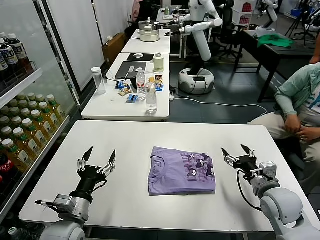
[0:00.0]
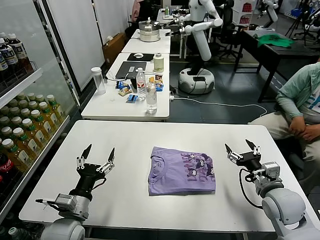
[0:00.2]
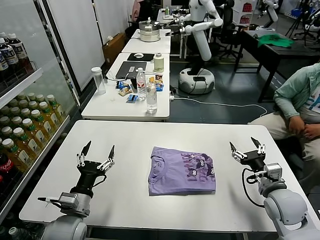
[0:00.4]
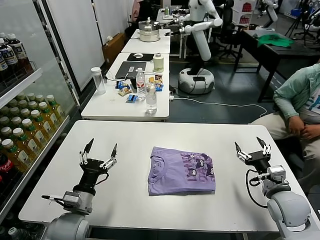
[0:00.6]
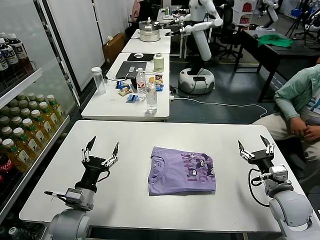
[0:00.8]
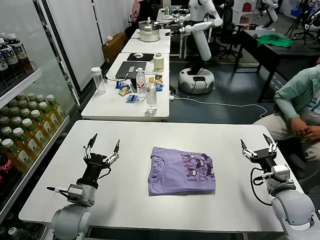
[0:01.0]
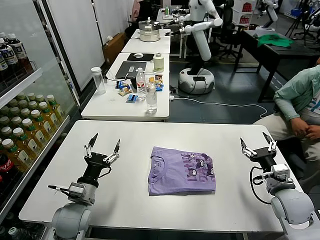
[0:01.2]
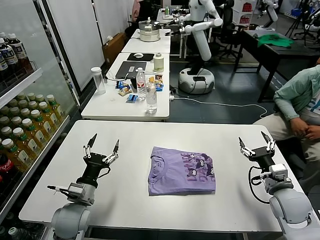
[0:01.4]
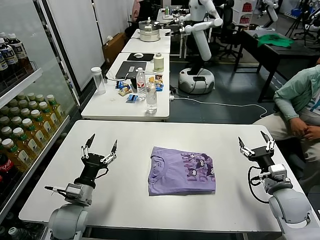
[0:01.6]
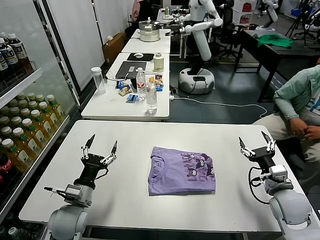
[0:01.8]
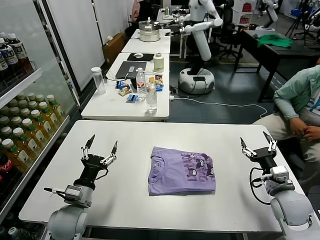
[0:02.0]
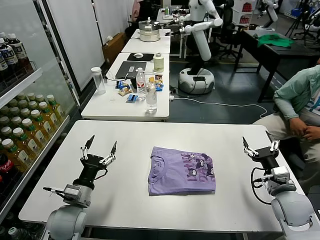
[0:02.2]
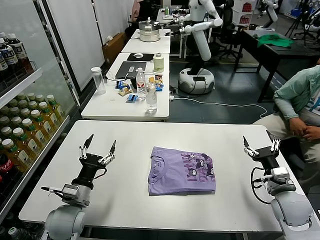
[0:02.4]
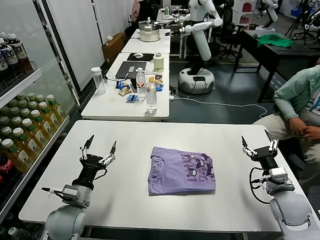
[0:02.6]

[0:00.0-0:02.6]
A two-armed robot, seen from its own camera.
Task of the whole recording: fold and organize the clothes.
0:00.0 to 0:01.2: The left gripper shifts some 5 cm forward.
0:01.2 to 0:02.6: There are only small adjustments of the grippers.

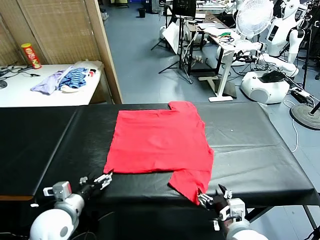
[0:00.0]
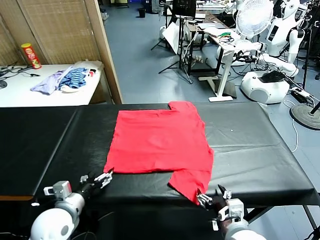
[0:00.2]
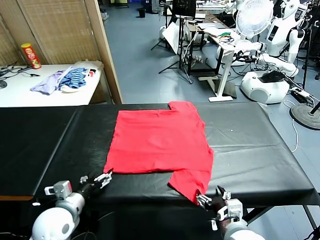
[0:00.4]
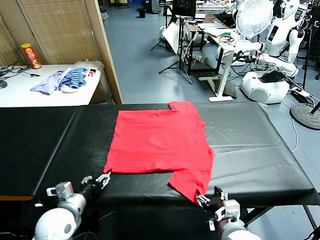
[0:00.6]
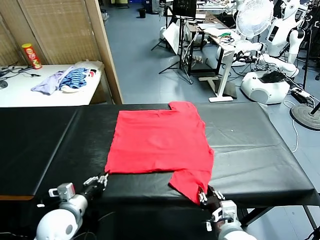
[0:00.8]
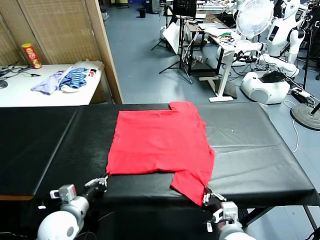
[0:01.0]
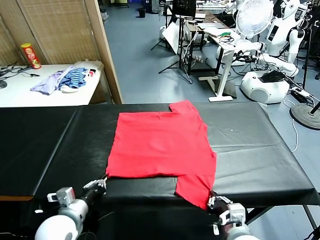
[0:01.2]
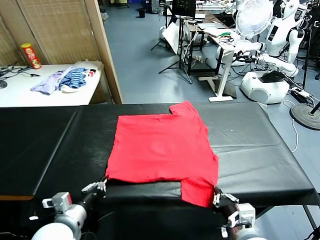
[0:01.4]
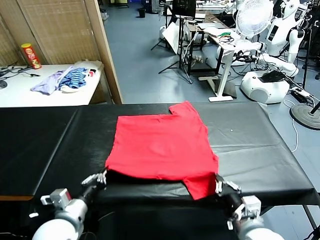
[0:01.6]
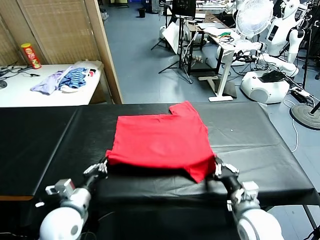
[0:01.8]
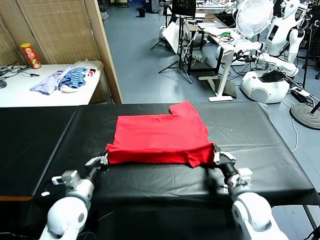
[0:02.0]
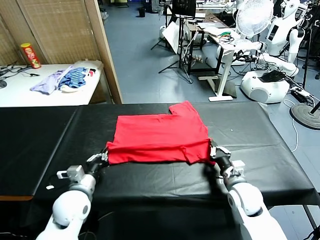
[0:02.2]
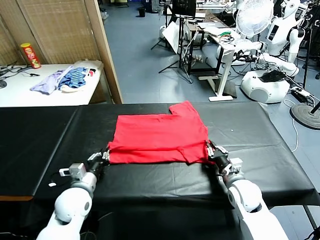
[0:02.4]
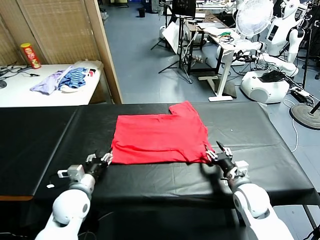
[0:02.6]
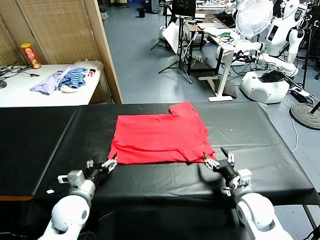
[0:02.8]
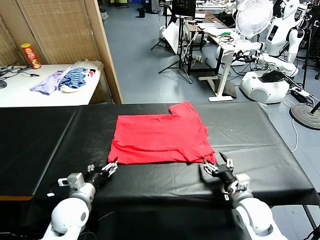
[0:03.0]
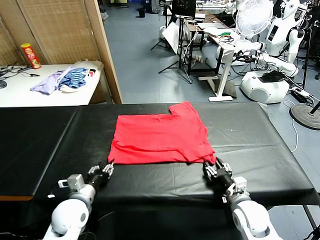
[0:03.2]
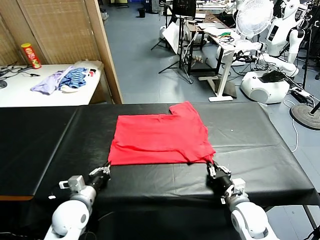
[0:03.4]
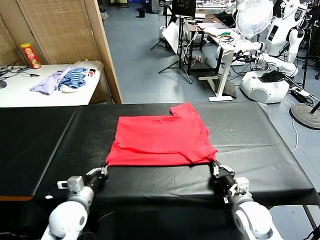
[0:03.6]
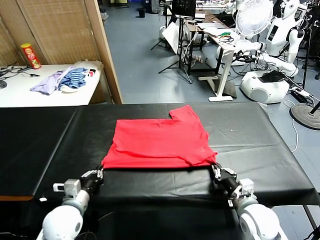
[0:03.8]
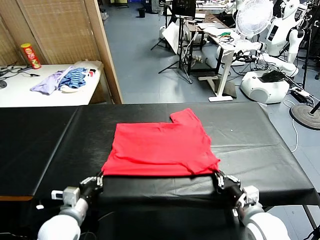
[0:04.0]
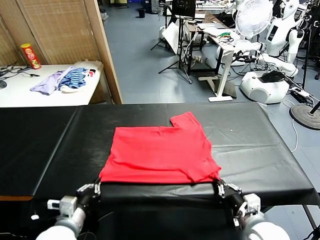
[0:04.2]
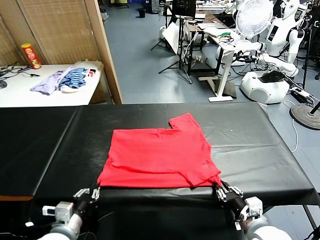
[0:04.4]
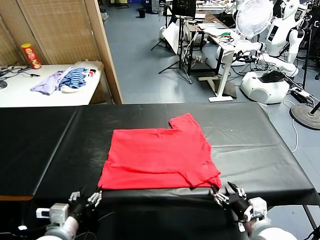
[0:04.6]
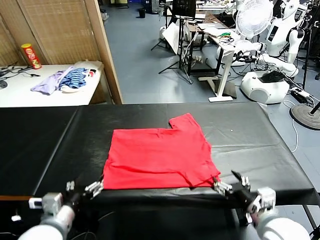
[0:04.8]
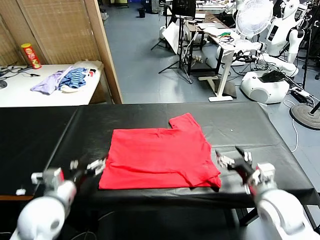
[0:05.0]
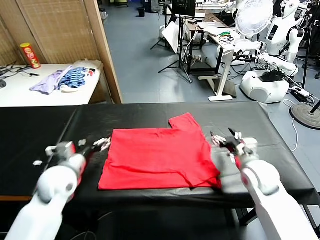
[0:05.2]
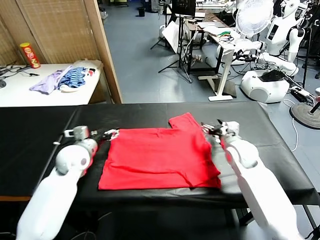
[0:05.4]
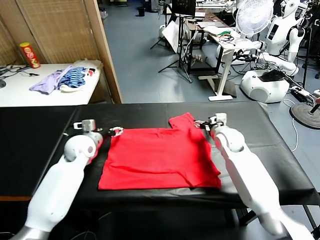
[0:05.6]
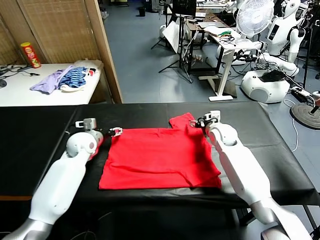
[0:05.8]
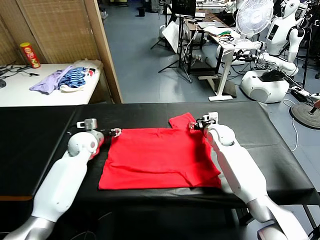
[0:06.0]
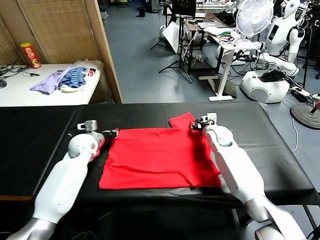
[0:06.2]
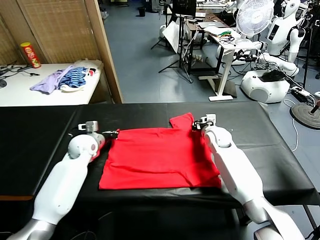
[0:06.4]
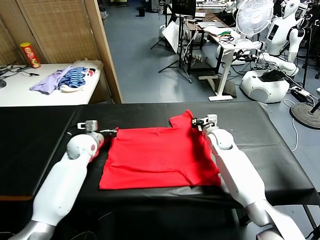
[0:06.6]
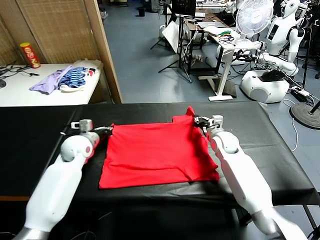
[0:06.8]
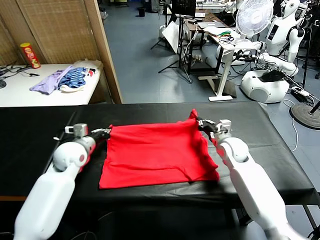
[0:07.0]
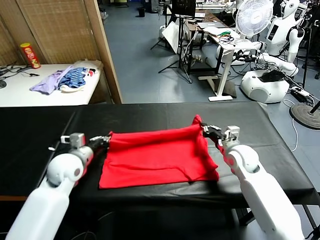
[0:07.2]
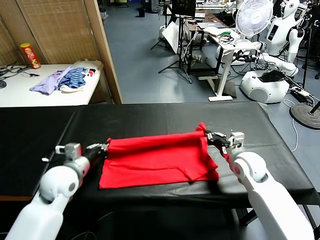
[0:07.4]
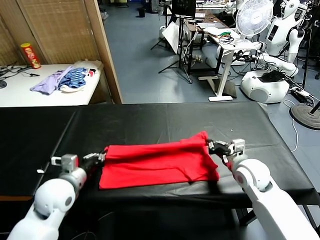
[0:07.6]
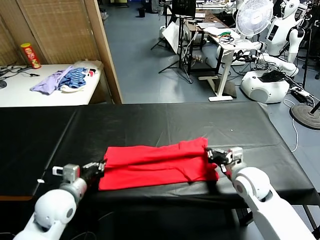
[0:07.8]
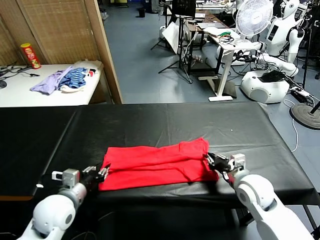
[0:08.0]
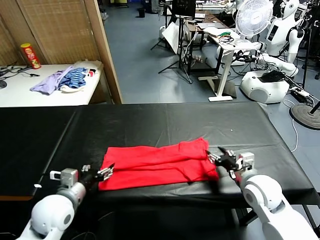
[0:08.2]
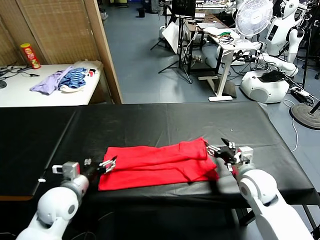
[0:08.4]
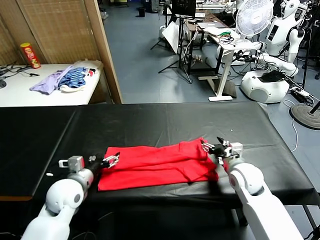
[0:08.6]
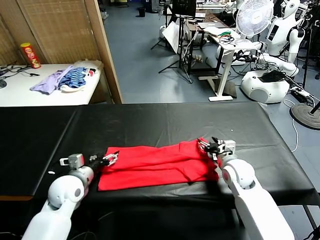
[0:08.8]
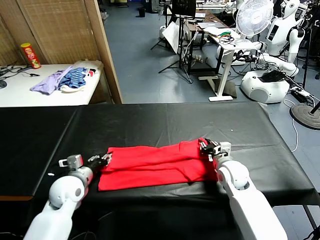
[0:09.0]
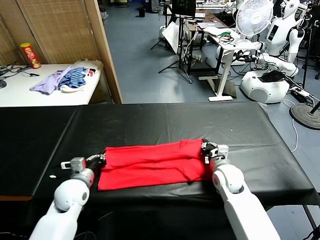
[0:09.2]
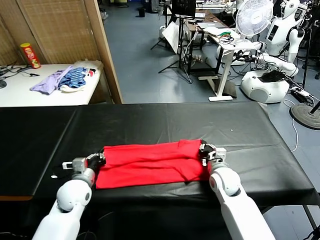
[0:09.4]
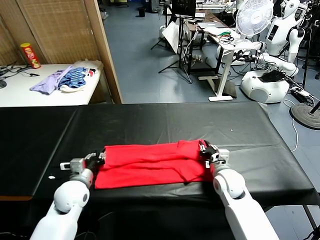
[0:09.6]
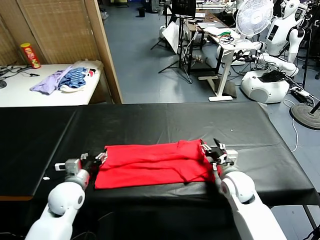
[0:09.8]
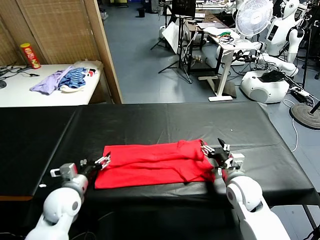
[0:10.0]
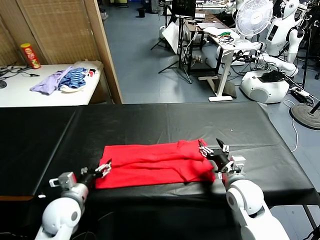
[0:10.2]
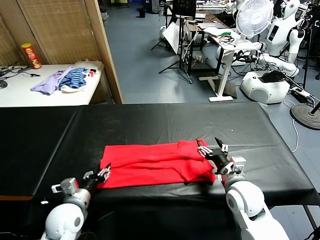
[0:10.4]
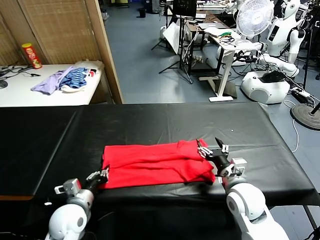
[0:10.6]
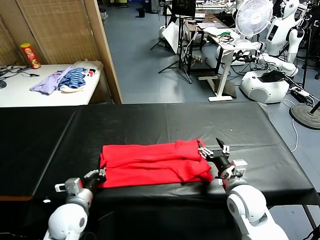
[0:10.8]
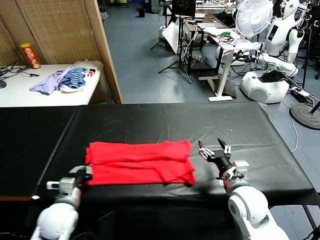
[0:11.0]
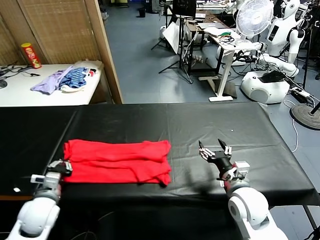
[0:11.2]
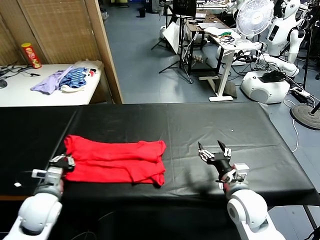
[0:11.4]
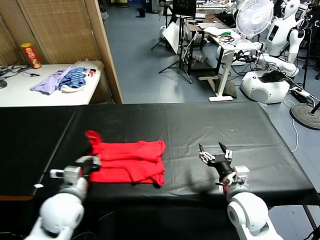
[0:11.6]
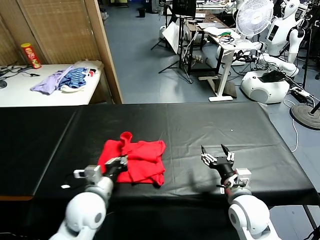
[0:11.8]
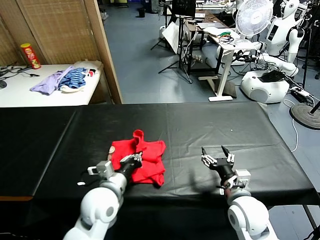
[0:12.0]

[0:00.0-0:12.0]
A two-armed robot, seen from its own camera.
Task of the whole recording: fold and organize the clothes.
Step, 0:00.0 to 0:01.2: use both grippers simultaneously to clamp the lower edge of the clothing fabric.
Step, 0:01.4 to 0:02.4: use both grippers to drag the lower edge of the fabric forward and fold it over the upper edge.
Step, 0:02.8 to 0:04.6: Drag the clothes downward with both gripper.
Step, 0:04.8 to 0:06.6: use both grippers simultaneously to clamp the upper edge of the clothing fabric.
Step, 0:06.8 to 0:08.2: use both grippers to drag the upper edge of the fabric backward and fold it over the lower edge.
Step, 0:08.4 to 0:10.8: use the left gripper to clamp the left edge of the fabric.
0:01.6 to 0:03.0: The two grippers go approximately 5 cm downward. The left gripper opens up; the right gripper opens, then closes once more.
0:03.0 to 0:04.4: The left gripper is displaced backward and upward by approximately 10 cm, and closes, then opens again. The right gripper travels upward and backward by some 15 cm, and opens its fingers.
0:04.4 to 0:06.0: The grippers both shift forward by roughly 35 cm. The right gripper closes. Meanwhile the left gripper opens and closes again.
0:06.0 to 0:07.6: The grippers both shift backward by approximately 20 cm. The left gripper closes.
0:07.6 to 0:09.0: The left gripper heads downward, covering approximately 5 cm, and opens, then closes again. The right gripper is displaced downward and forward by some 10 cm, and opens and closes again.
0:09.0 to 0:10.4: The right gripper shifts approximately 10 cm backward and upward, and opens its fingers, while the left gripper goes about 10 cm backward, and opens, then closes again.
0:10.4 to 0:12.0: The left gripper travels to the right and upward by roughly 15 cm, and closes its fingers.

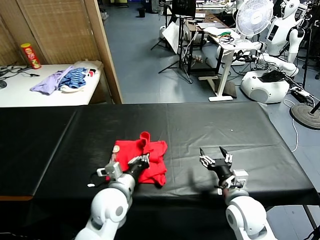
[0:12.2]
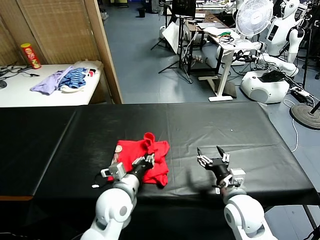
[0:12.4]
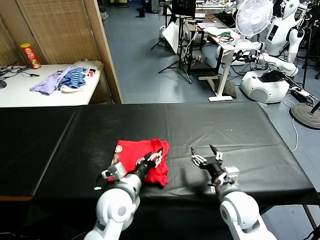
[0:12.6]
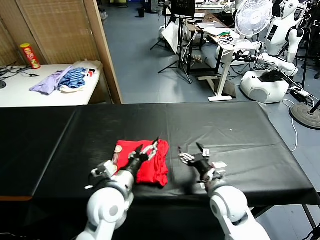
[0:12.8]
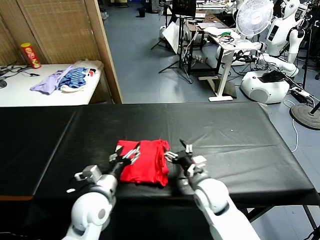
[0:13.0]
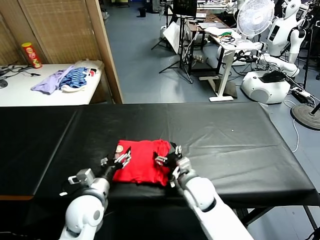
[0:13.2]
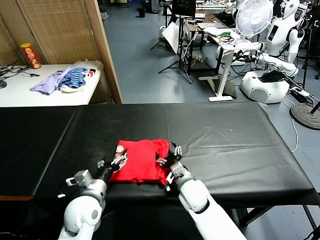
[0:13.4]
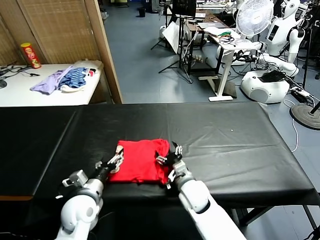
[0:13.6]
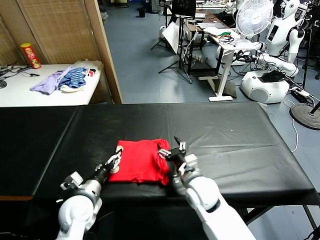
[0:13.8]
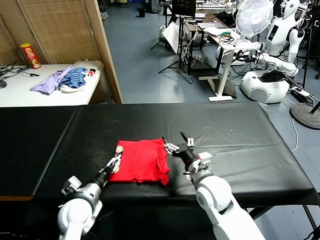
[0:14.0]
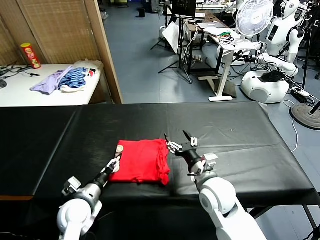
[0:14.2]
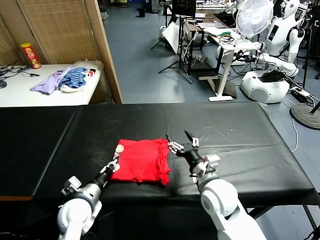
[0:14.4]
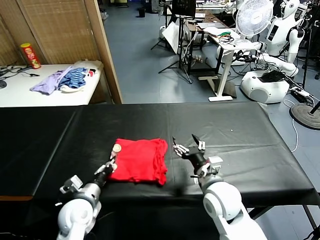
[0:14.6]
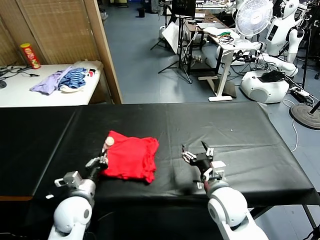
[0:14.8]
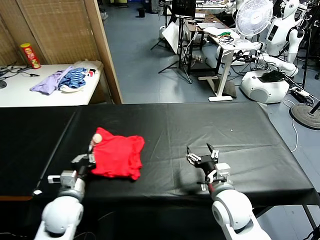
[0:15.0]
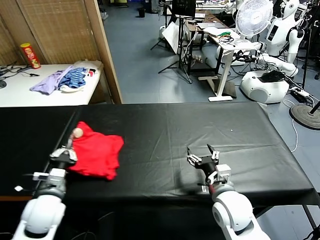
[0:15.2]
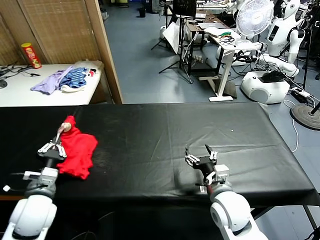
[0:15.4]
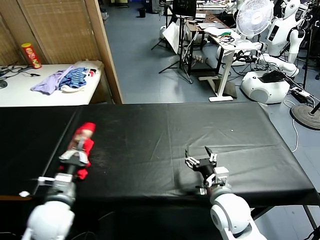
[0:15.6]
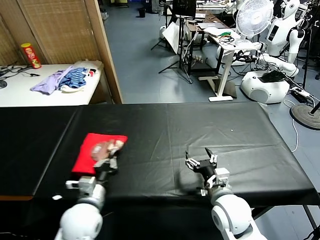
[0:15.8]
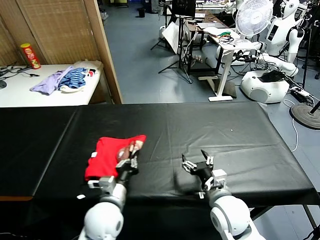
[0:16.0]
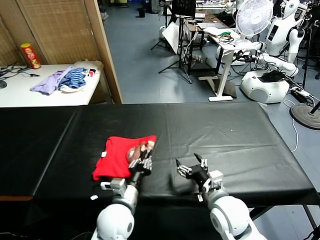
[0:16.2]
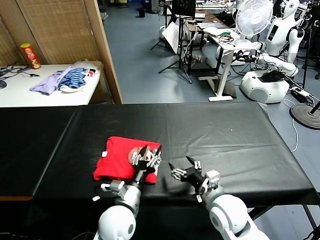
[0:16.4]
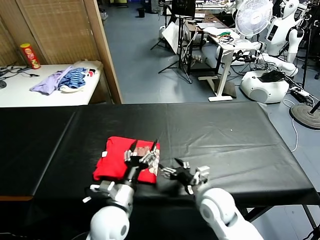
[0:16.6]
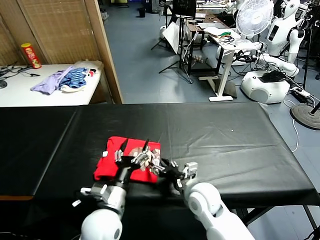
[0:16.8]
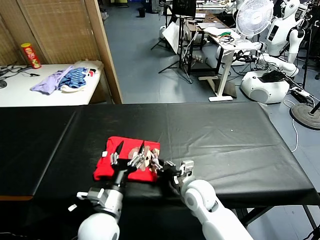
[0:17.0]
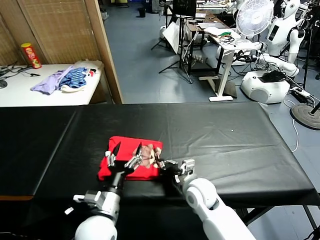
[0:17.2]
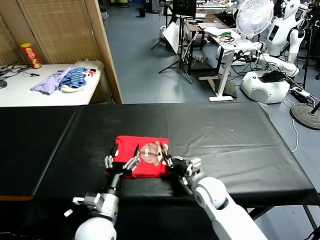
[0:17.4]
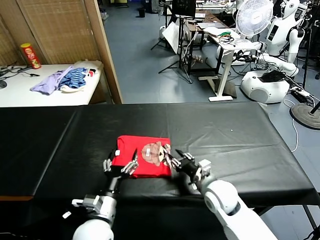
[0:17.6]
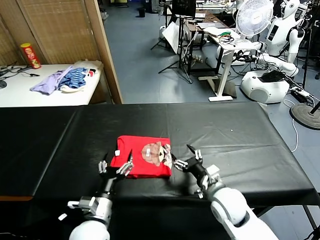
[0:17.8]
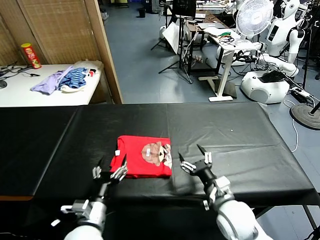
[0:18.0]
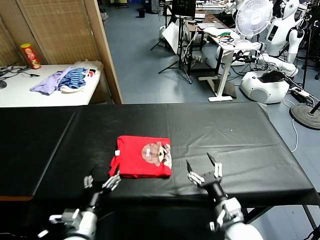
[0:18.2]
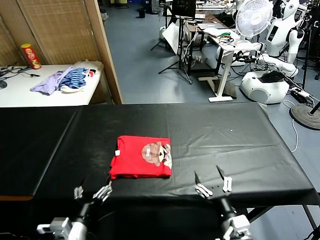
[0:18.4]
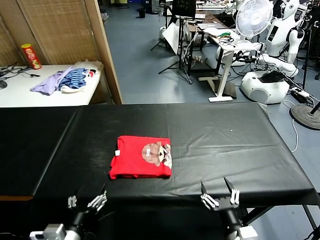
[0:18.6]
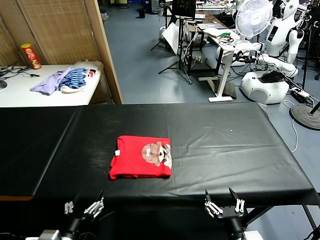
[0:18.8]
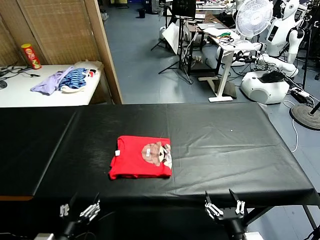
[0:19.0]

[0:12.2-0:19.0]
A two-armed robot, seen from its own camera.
Task of the whole recording: fold and organize the clothes.
Step, 0:13.0 to 0:16.4: Flip the folded clothes over with left gripper.
Step, 0:16.6 to 0:17.8: Drag the clothes to the center of the table.
0:12.2 to 0:13.6: The right gripper goes approximately 15 cm to the left and forward; the left gripper moves to the left, some 10 cm, and opens.
0:13.6 to 0:15.0: The right gripper is displaced to the right, upward and backward by some 10 cm; the left gripper closes its fingers.
0:15.0 to 0:16.2: The left gripper goes roughly 15 cm to the right.
0:16.2 to 0:17.6: The left gripper ends up approximately 5 cm from where it was, and opens. The right gripper goes some 5 cm forward, and closes up.
0:17.6 to 0:19.0: The left gripper travels backward and to the left by approximately 15 cm; the right gripper goes approximately 25 cm backward, and opens its fingers.
